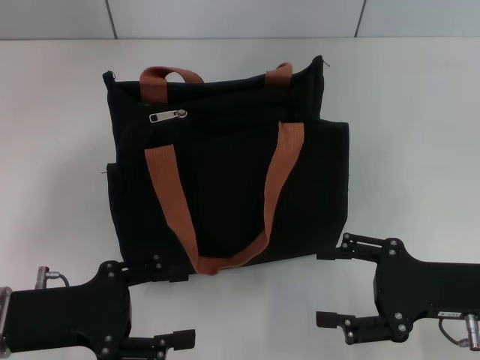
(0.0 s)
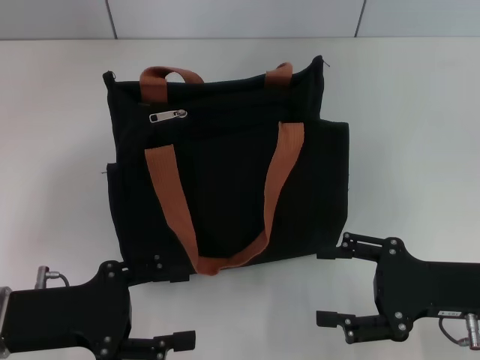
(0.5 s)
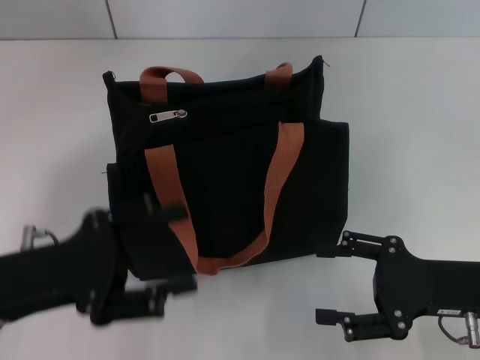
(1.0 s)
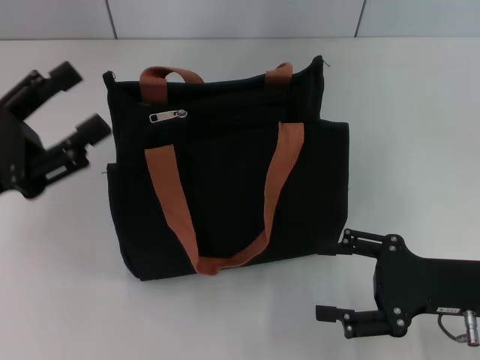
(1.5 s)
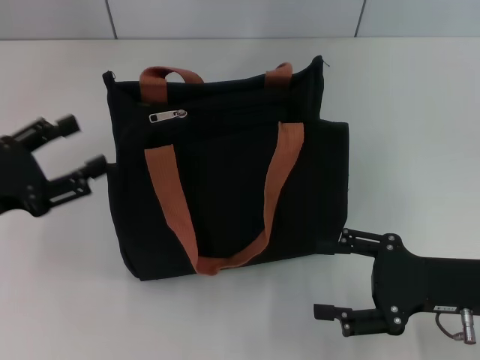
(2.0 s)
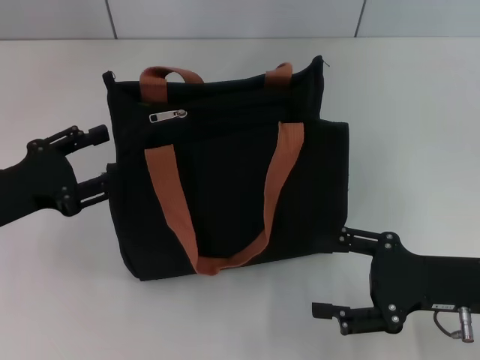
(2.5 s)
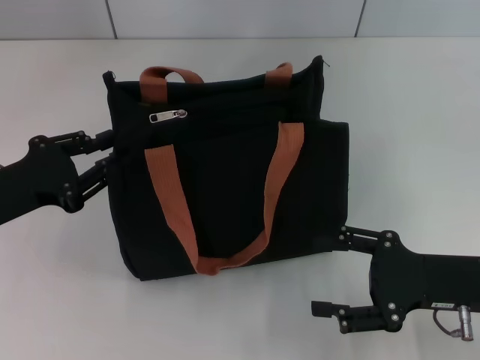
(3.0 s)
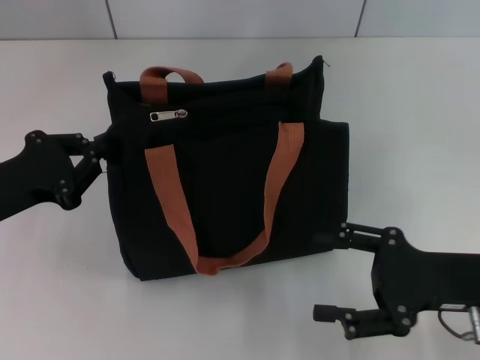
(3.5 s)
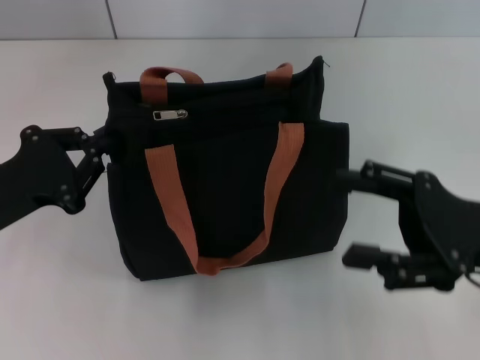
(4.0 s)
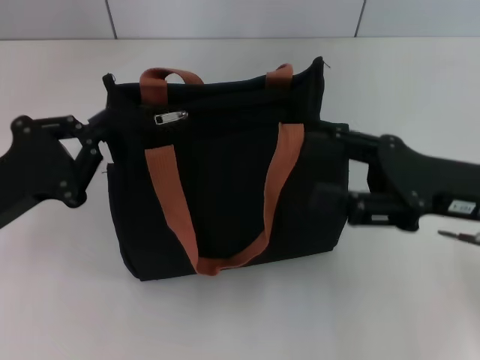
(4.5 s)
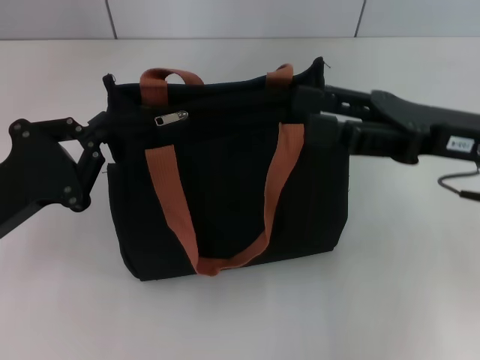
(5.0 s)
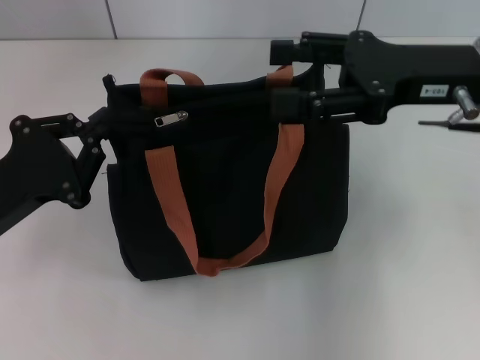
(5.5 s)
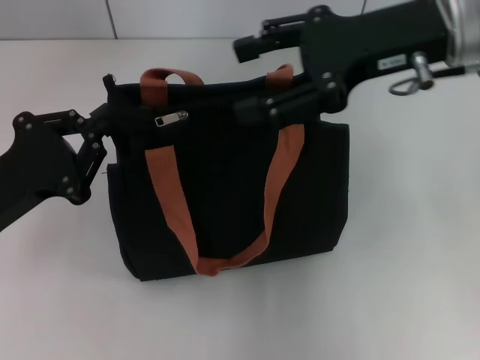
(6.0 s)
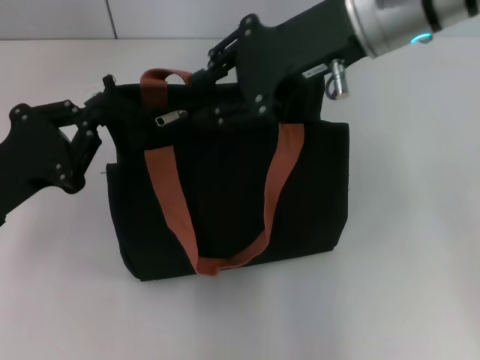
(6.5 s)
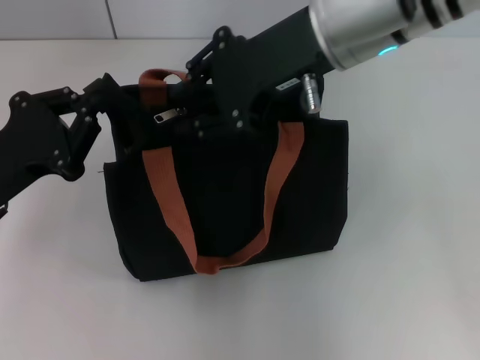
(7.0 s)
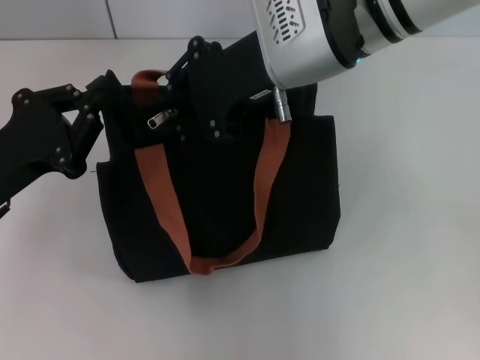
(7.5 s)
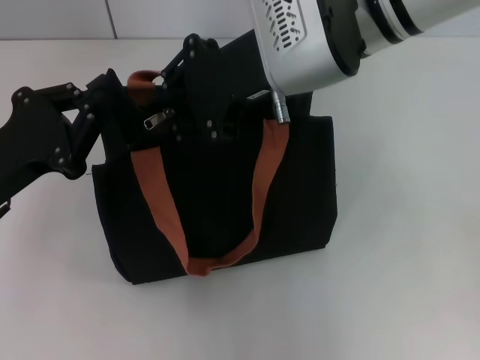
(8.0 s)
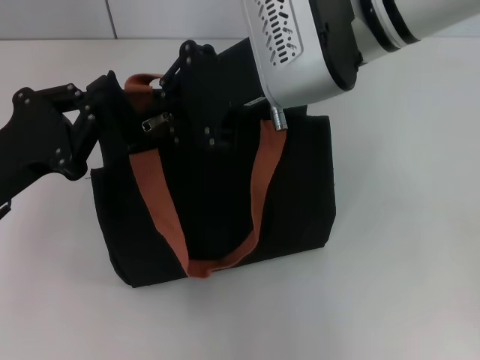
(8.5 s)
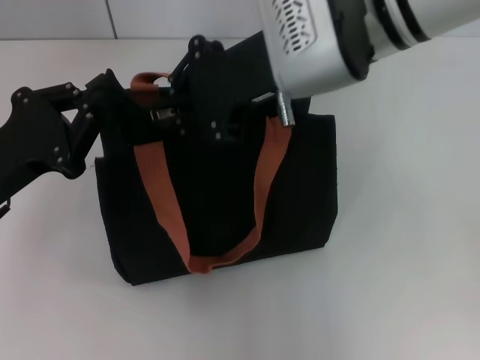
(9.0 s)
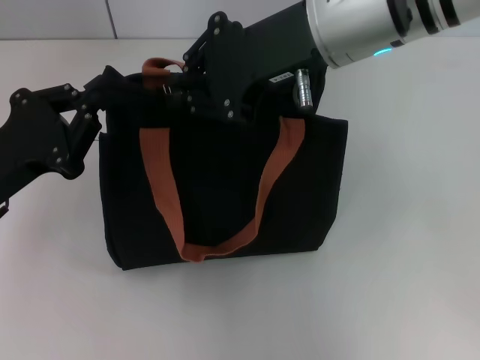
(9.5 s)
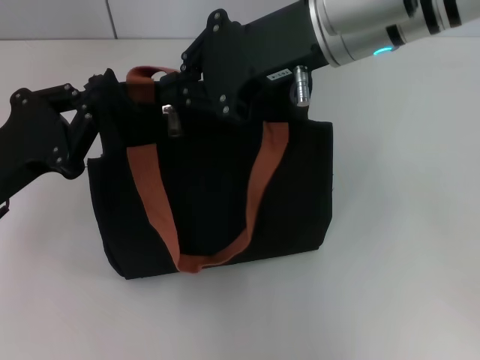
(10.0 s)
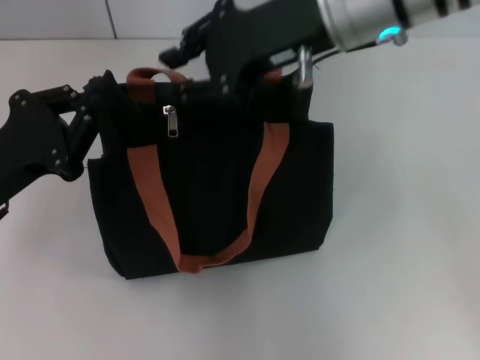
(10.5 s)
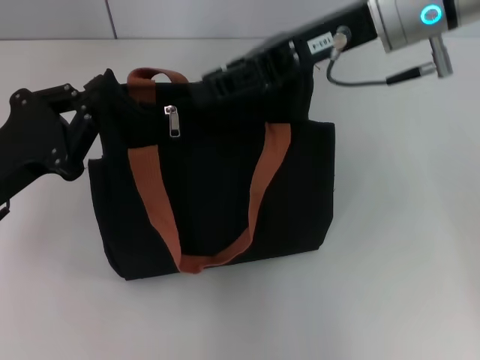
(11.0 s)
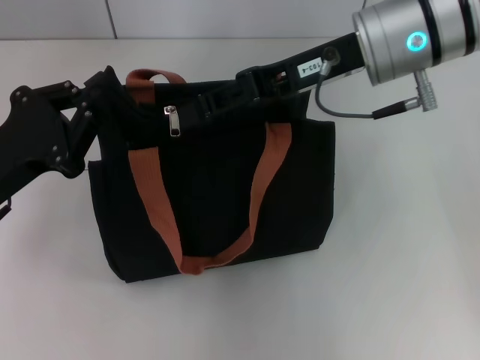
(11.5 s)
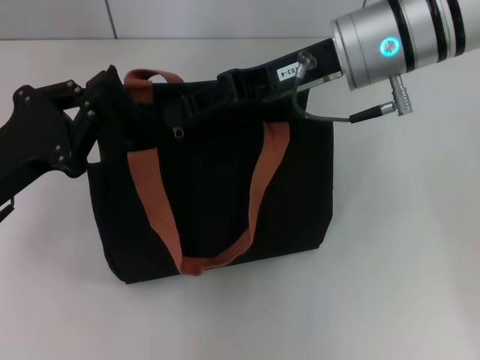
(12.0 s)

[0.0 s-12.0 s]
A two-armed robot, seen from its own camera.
0.0 to 2.0 s: The left gripper shifts roughly 5 cm to the left.
2.0 to 4.0 s: The right gripper moves upward, some 5 cm. Meanwhile the left gripper closes up.
4.0 to 6.0 s: The right gripper is displaced upward, forward and to the left by some 20 cm.
6.0 to 8.0 s: The right gripper travels to the left by approximately 10 cm, and closes up.
8.0 to 10.0 s: The grippers stay close to where they were, moving slightly.
10.0 to 12.0 s: The right gripper shifts by about 5 cm, and opens its fingers.

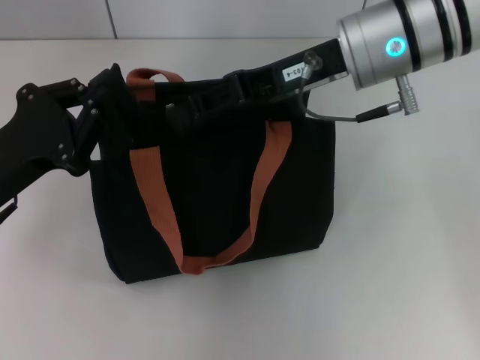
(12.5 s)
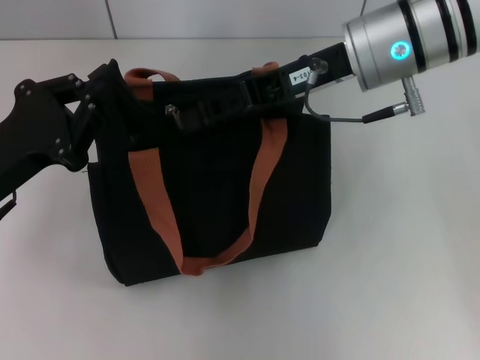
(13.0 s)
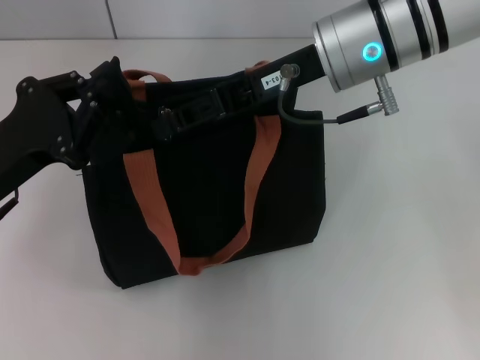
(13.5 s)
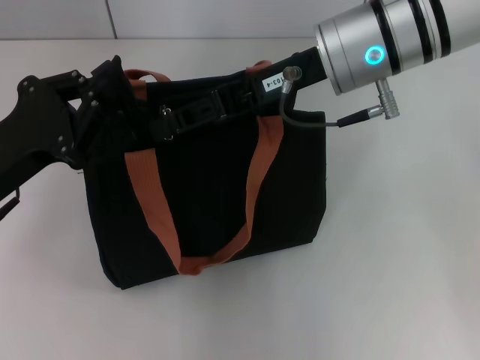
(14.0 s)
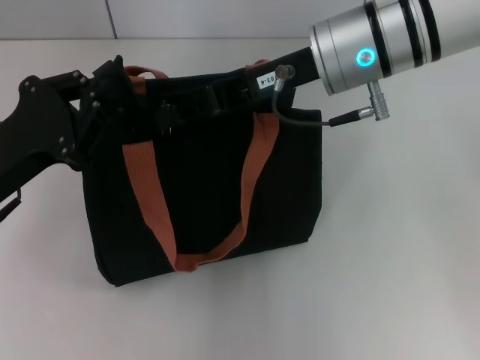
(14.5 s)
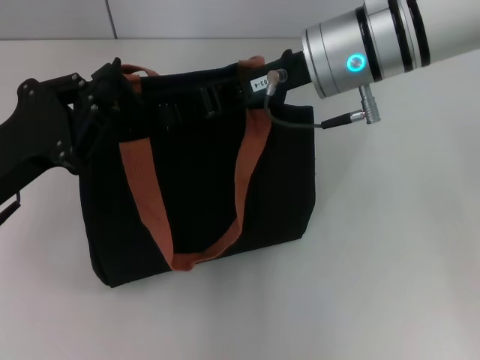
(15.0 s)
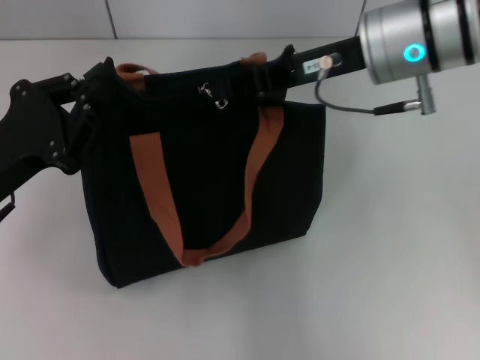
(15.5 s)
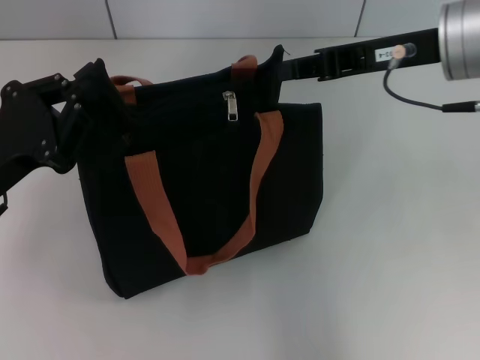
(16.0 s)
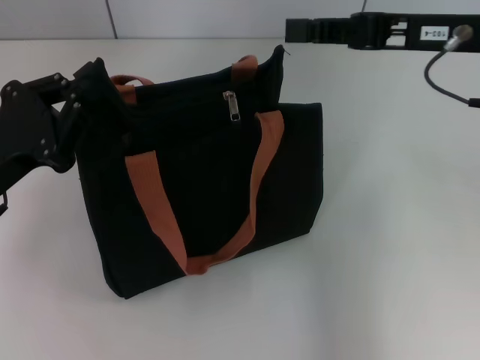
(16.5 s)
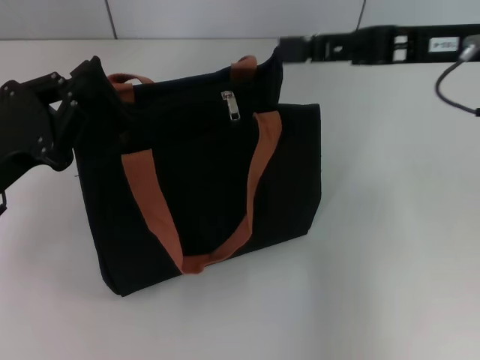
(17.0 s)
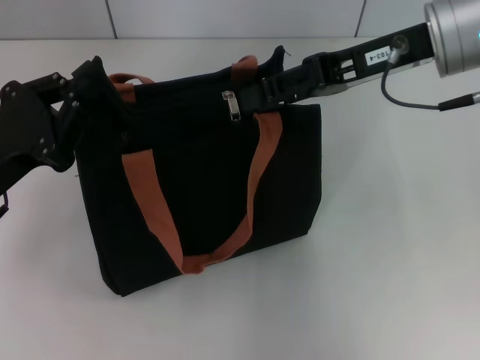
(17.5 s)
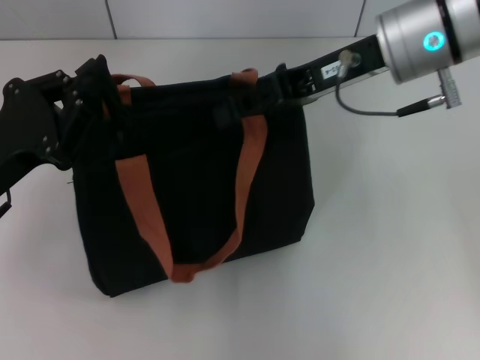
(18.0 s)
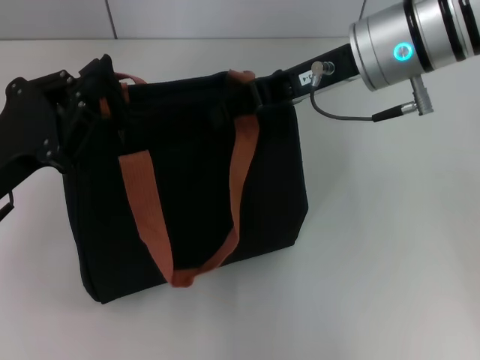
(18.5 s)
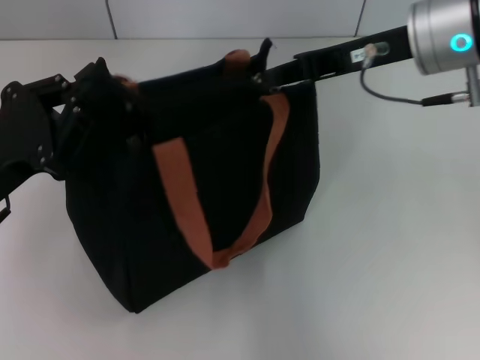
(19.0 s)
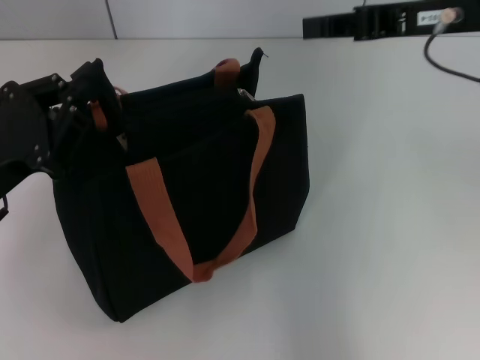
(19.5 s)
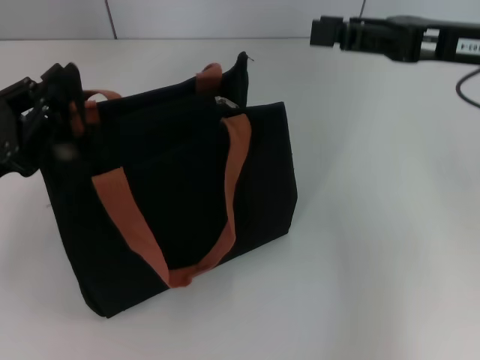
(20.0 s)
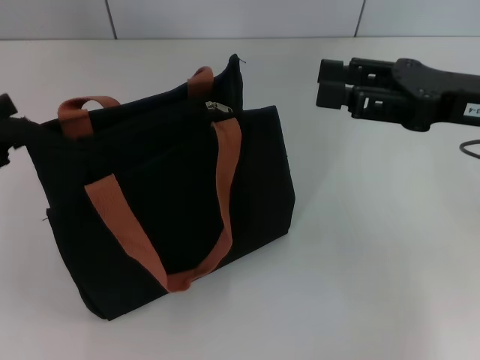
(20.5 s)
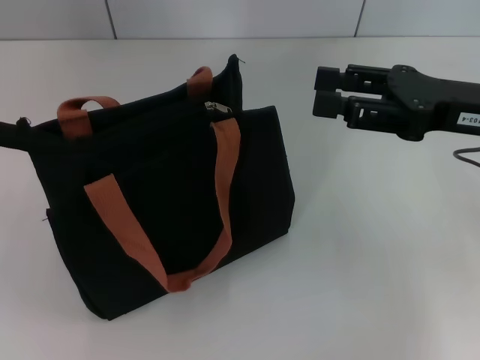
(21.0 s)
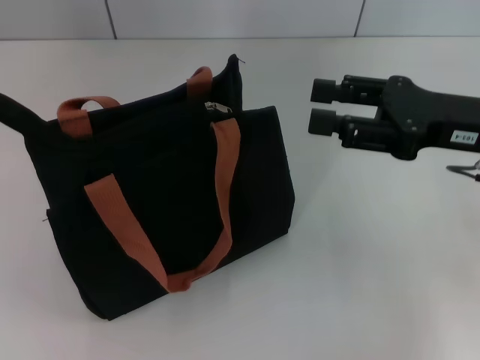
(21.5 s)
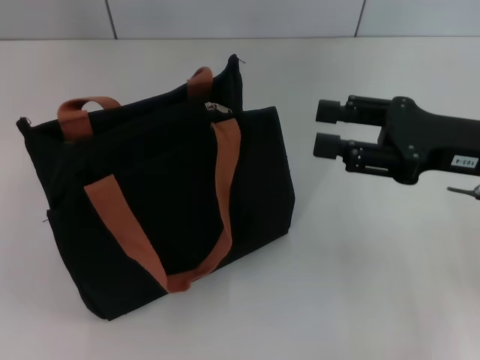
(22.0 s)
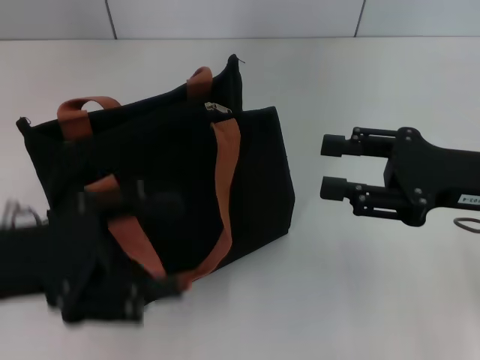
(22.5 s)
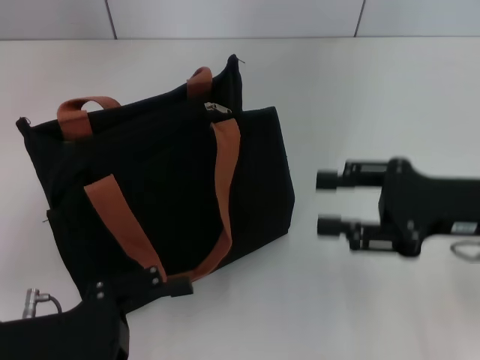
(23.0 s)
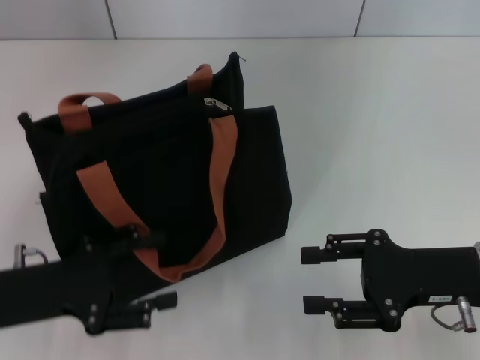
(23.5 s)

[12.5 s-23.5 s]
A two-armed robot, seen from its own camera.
Step, 12.5 to 19.0 s: Pull up the zipper with your right hand.
Step, 19.5 to 21.5 s: Grab the zipper with your left hand.
12.5 to 14.5 s: The grippers make only small movements.
14.5 to 16.0 s: The right gripper shifts some 10 cm to the right.
16.0 to 18.0 s: The right gripper changes place by roughly 5 cm, and opens up.
18.0 to 20.0 s: The right gripper moves to the right, approximately 10 cm, and closes, then reopens.
20.0 to 21.5 s: The right gripper heads downward, covering about 5 cm; the left gripper travels to the left and upward by roughly 15 cm, and opens up.
21.5 to 23.5 s: The right gripper travels downward and backward by roughly 10 cm; the left gripper goes some 15 cm downward and to the right.

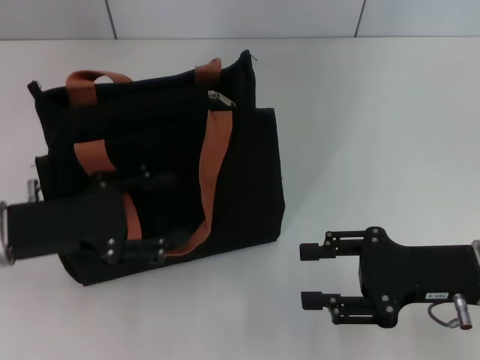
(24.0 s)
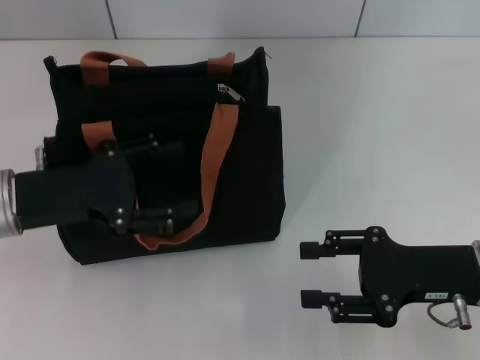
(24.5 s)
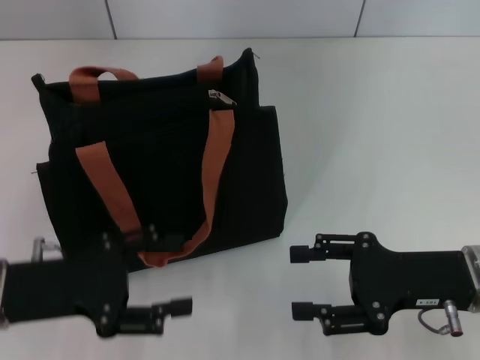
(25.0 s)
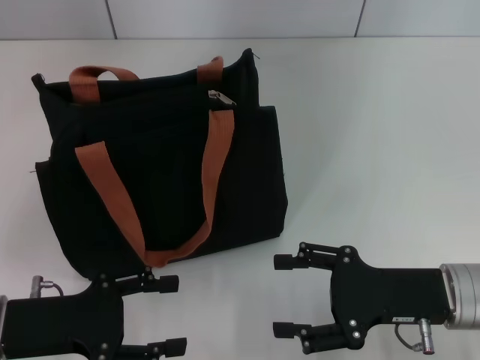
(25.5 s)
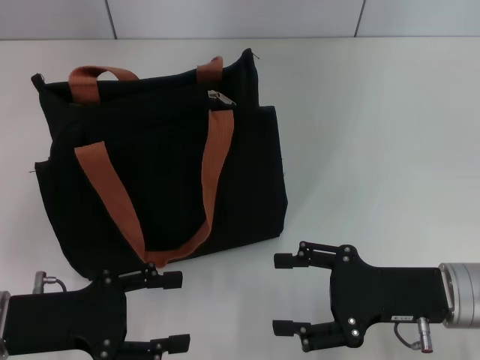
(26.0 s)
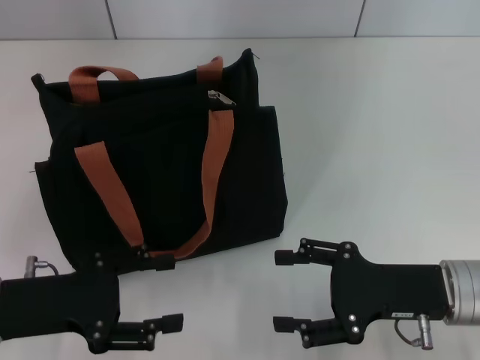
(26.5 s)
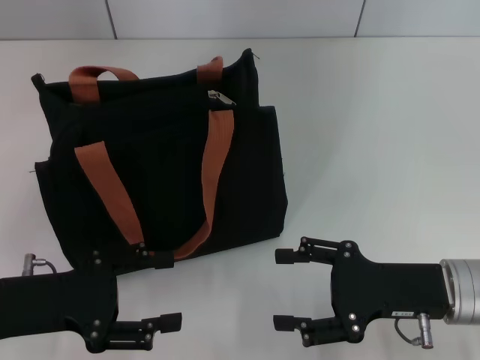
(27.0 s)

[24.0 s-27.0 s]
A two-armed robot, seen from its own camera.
24.0 to 25.5 s: The left gripper travels backward by approximately 5 cm.
25.5 to 27.0 s: The grippers stay close to where they were, moving slightly.
